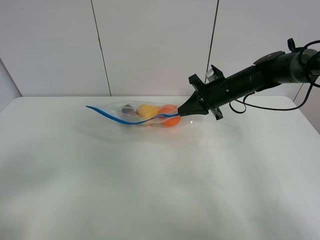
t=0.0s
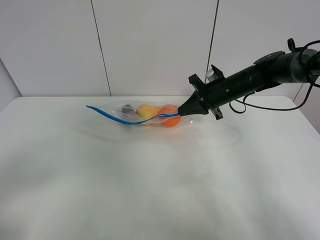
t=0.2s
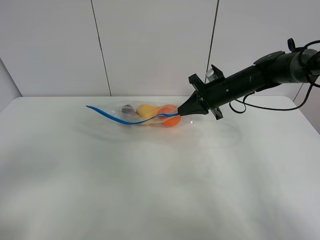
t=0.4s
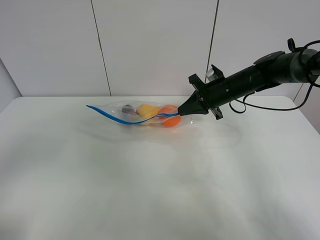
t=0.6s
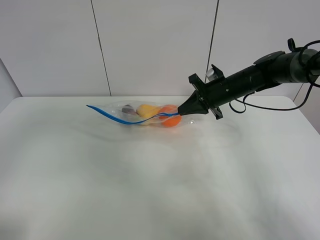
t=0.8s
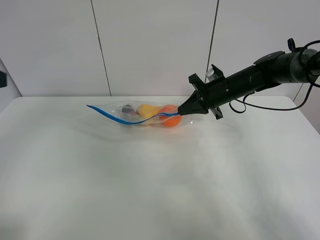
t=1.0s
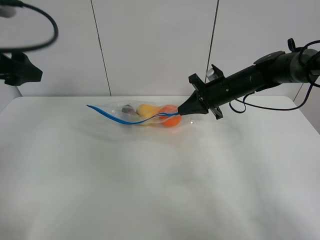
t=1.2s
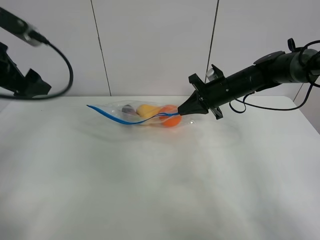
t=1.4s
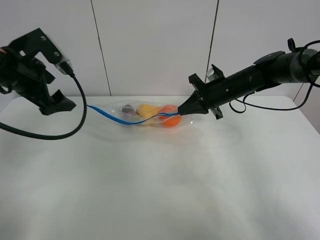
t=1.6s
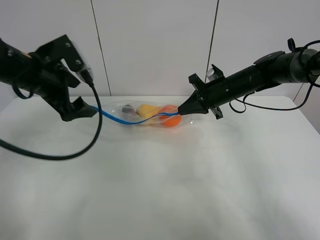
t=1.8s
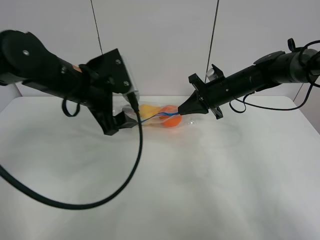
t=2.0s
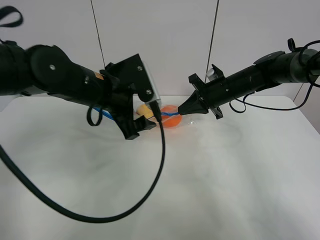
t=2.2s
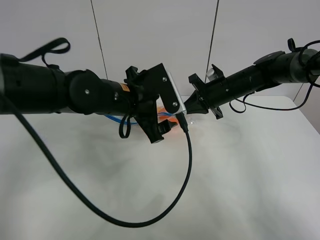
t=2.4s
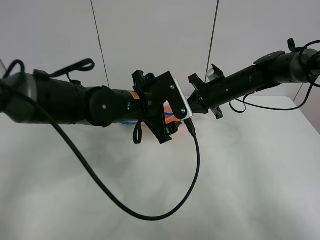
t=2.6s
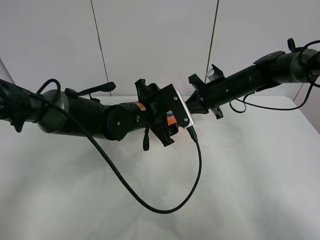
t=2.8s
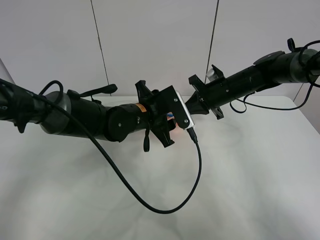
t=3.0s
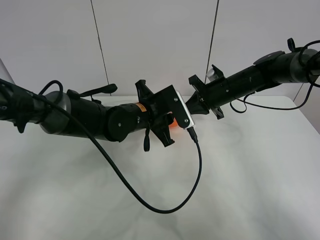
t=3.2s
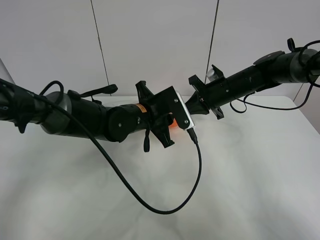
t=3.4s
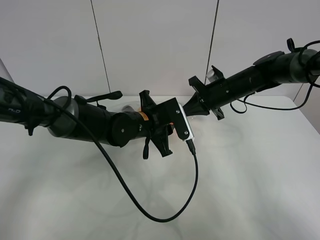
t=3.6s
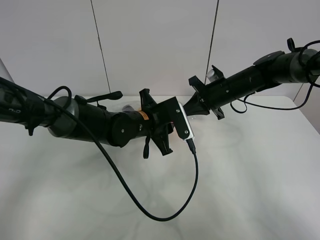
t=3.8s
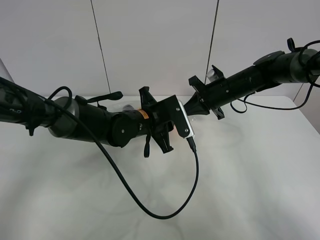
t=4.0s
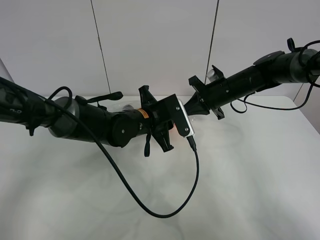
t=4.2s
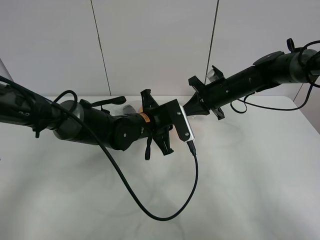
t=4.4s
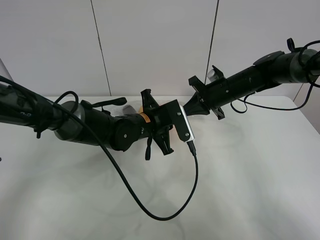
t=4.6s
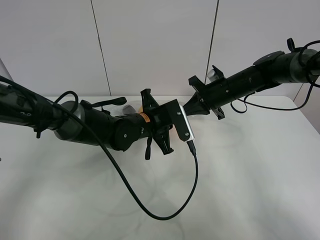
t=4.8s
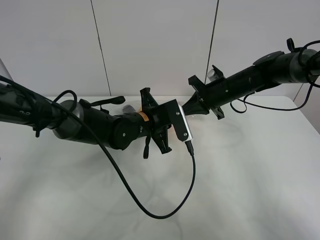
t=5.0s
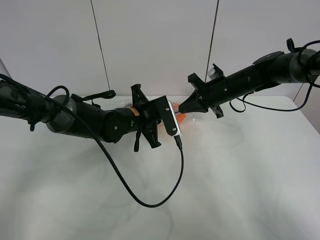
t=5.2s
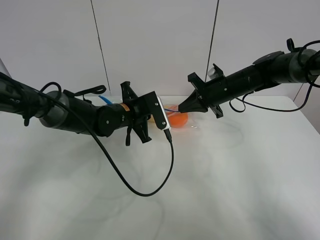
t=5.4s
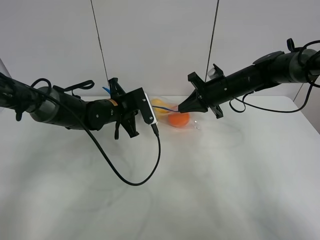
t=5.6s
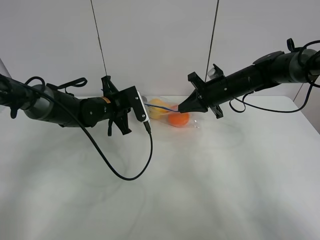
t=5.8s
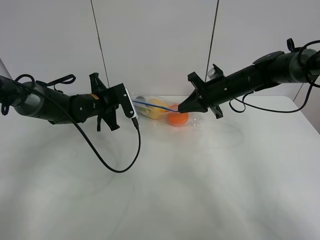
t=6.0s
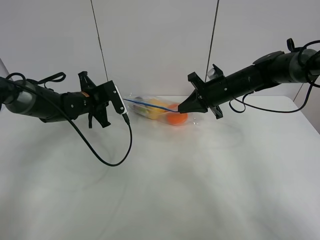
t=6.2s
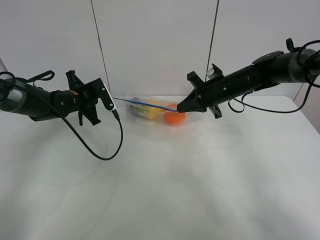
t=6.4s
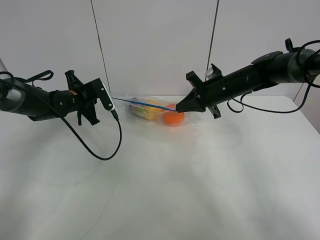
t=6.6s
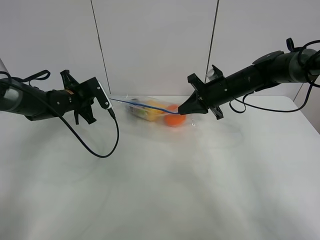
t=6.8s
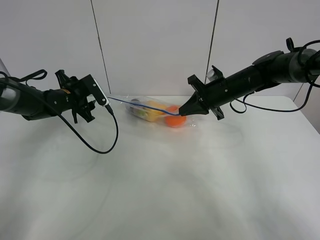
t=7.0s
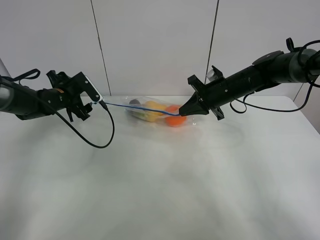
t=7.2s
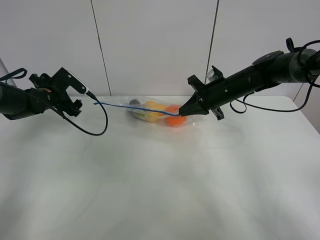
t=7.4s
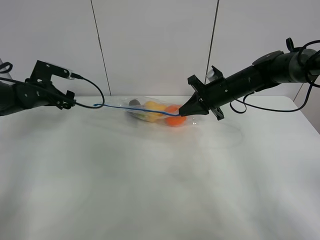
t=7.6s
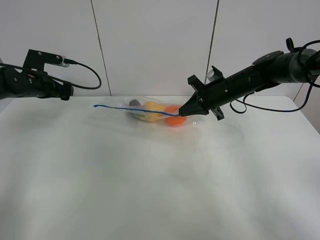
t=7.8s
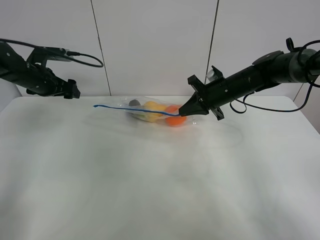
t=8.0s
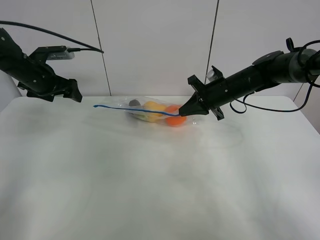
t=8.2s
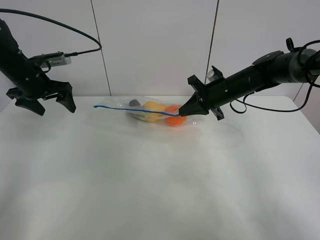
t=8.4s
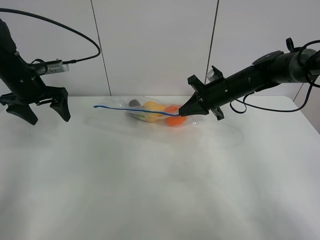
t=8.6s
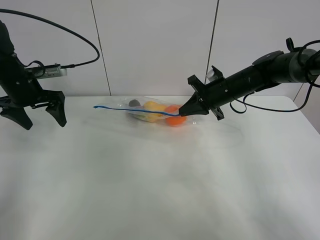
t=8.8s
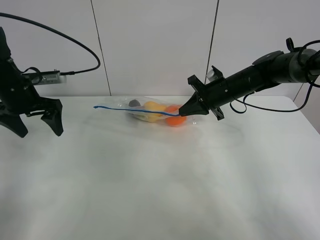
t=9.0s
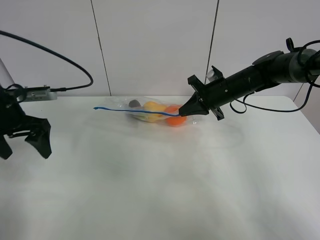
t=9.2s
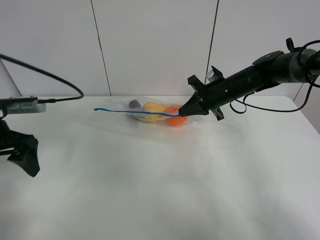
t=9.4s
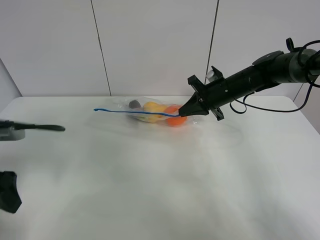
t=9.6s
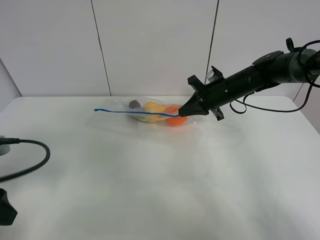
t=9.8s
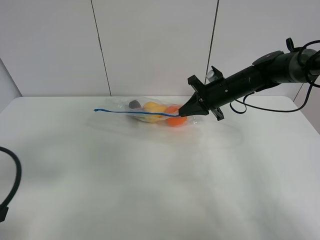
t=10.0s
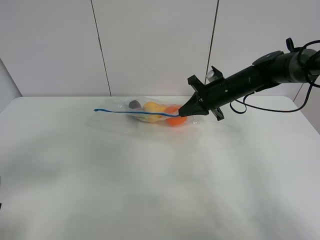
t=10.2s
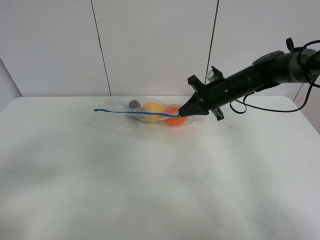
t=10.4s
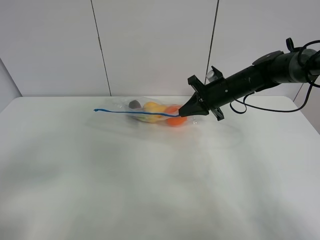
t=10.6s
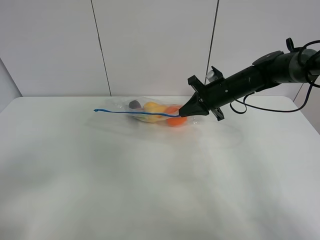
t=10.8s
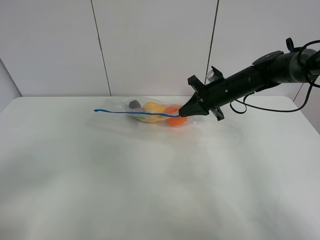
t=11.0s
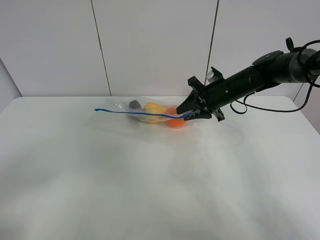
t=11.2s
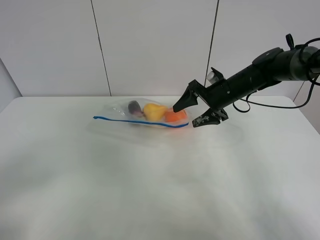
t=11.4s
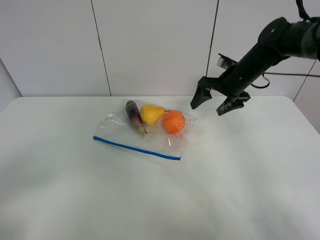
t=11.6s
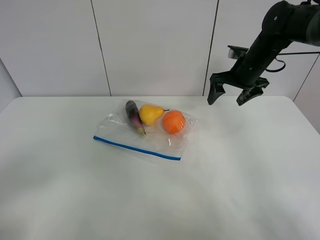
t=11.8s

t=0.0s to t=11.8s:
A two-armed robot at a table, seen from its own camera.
Step, t=0.2s to t=6.8s: Pull the fruit bag with left gripper.
t=0.0s to t=1.4s: The left gripper travels forward by roughly 30 cm.
t=1.4s to t=3.0s: The left gripper is displaced to the right and downward by roughly 30 cm, and closes up.
t=3.0s to t=4.4s: The left gripper closes.
t=4.4s to t=6.0s: The left gripper moves to the left and forward, roughly 15 cm.
t=6.0s to t=7.4s: The left gripper heads to the left, covering about 15 cm, and opens its fingers.
t=7.4s to t=8.8s: The left gripper goes about 10 cm upward and backward.
t=8.8s to t=10.4s: The left gripper goes roughly 30 cm backward.
t=10.4s to t=11.8s: The left gripper ends up roughly 5 cm from where it was. The right gripper shifts roughly 10 cm upward and to the right, and opens its fingers.

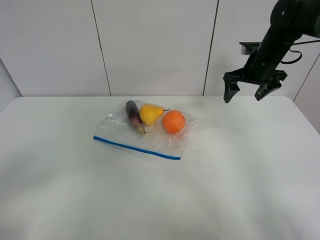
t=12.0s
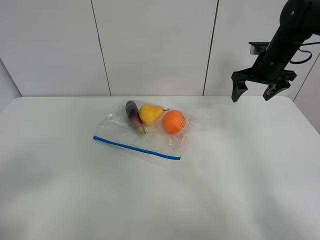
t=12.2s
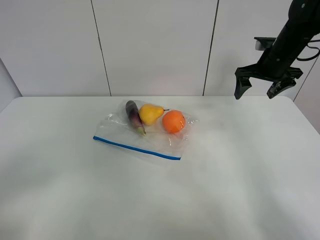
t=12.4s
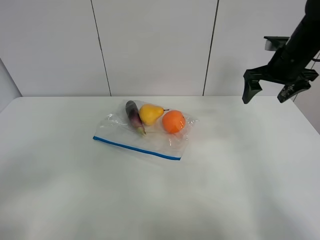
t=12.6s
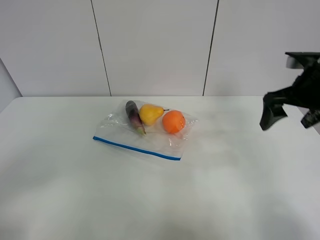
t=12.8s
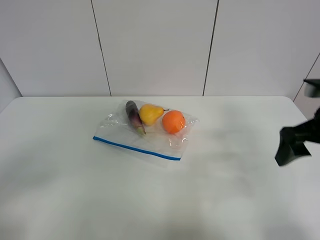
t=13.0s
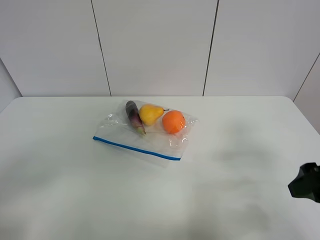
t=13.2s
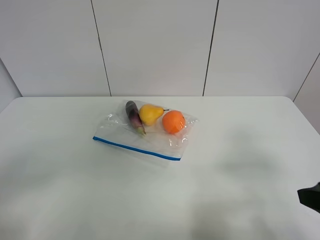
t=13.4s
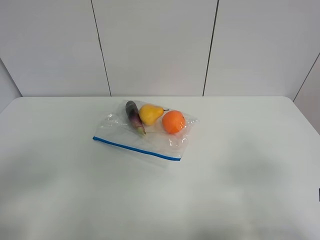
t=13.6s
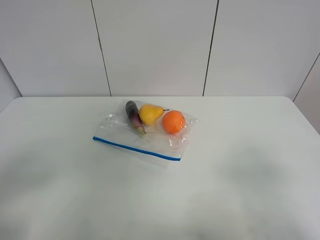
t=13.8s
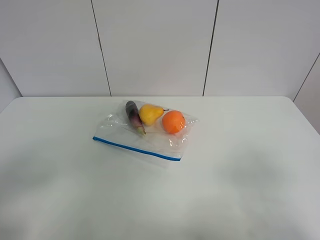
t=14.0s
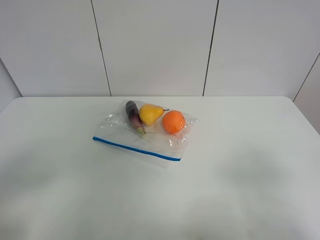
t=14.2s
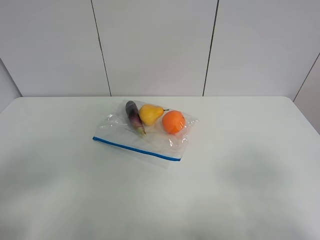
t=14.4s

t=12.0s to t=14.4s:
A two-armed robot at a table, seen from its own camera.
t=12.0s to t=13.2s: The right gripper shifts approximately 30 cm backward.
t=13.2s to t=14.4s: The right gripper goes some 10 cm backward.

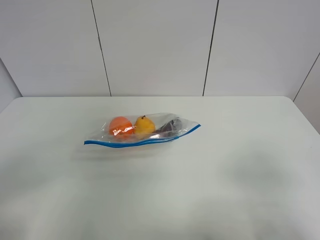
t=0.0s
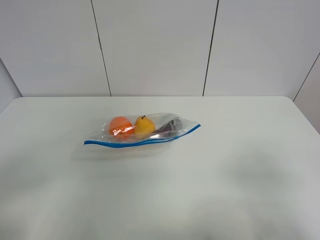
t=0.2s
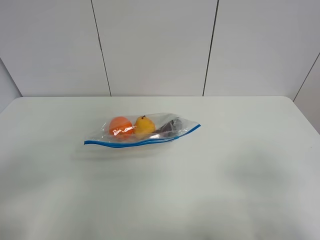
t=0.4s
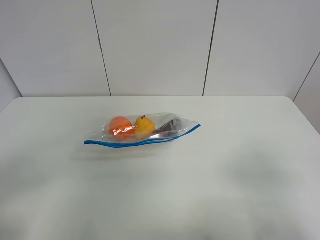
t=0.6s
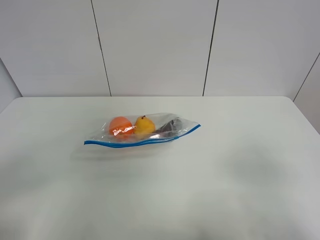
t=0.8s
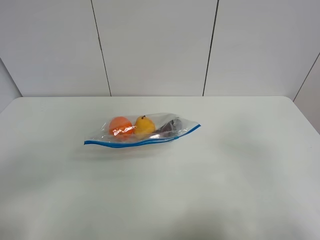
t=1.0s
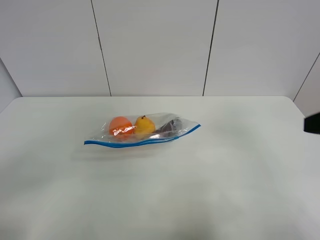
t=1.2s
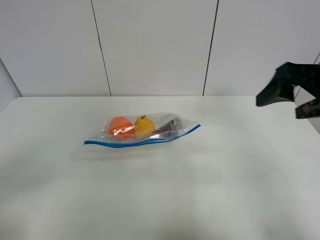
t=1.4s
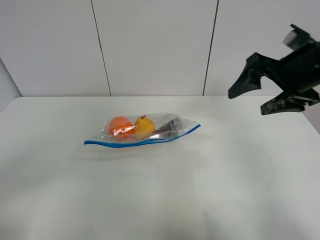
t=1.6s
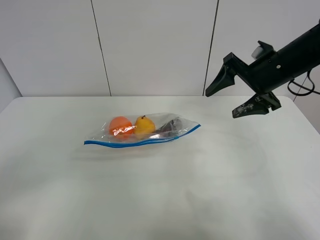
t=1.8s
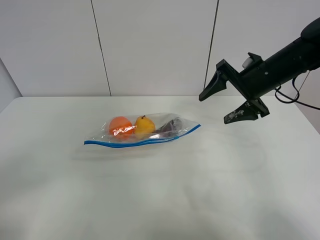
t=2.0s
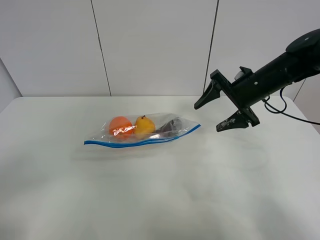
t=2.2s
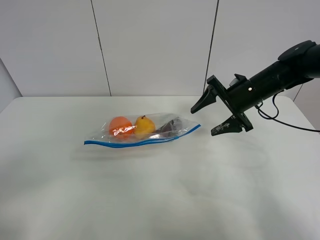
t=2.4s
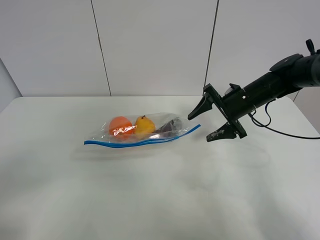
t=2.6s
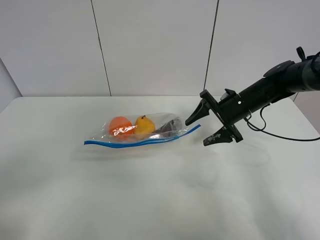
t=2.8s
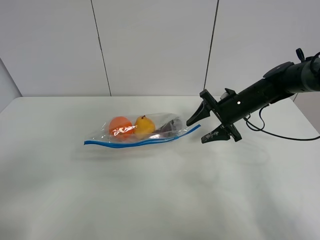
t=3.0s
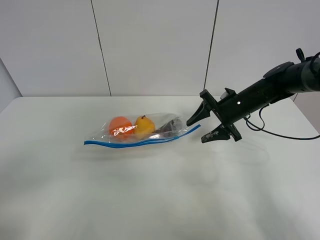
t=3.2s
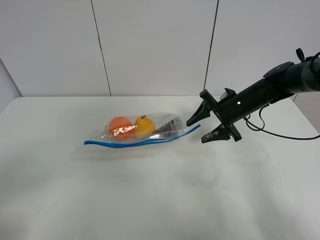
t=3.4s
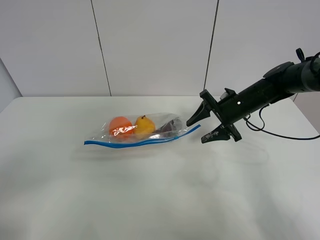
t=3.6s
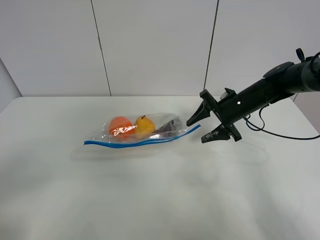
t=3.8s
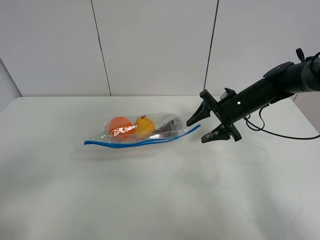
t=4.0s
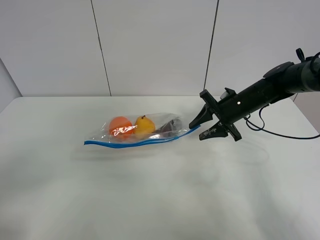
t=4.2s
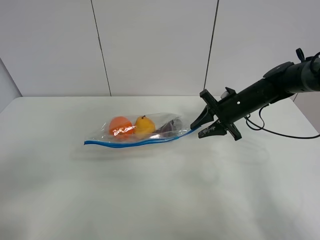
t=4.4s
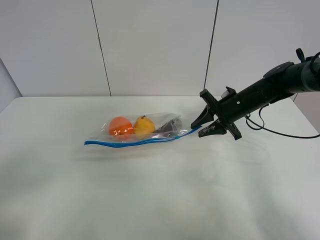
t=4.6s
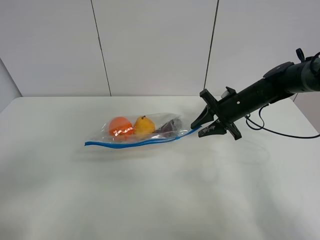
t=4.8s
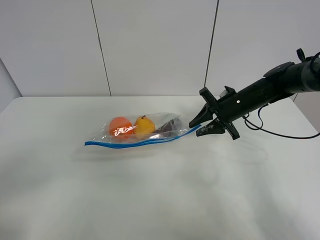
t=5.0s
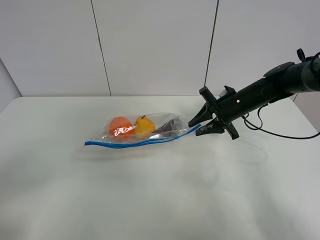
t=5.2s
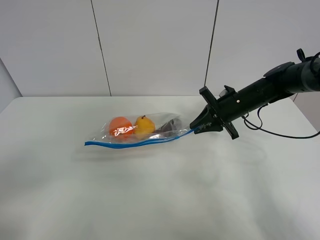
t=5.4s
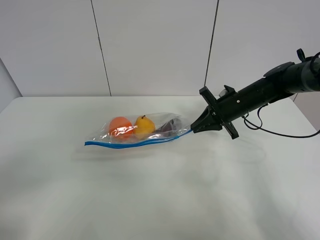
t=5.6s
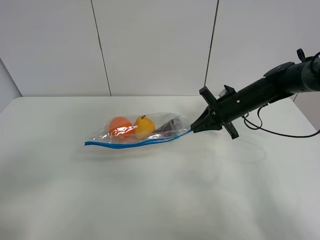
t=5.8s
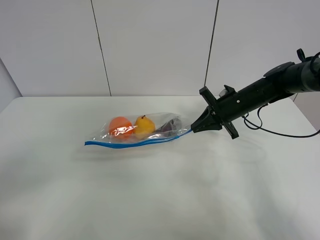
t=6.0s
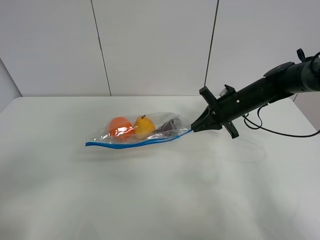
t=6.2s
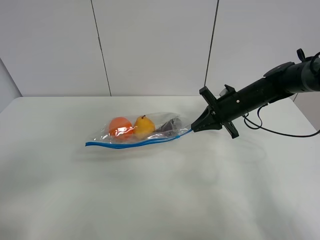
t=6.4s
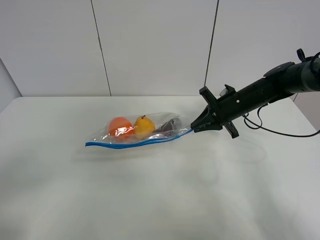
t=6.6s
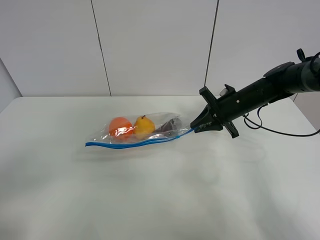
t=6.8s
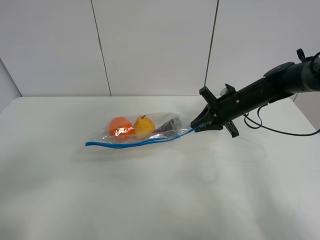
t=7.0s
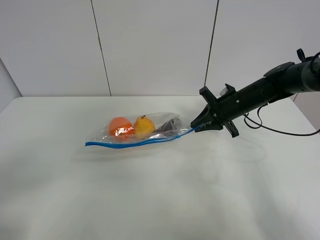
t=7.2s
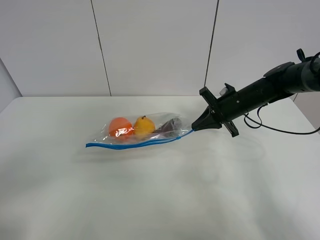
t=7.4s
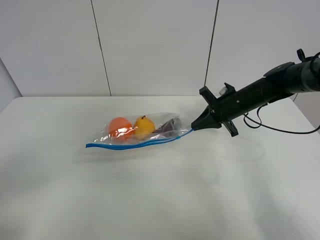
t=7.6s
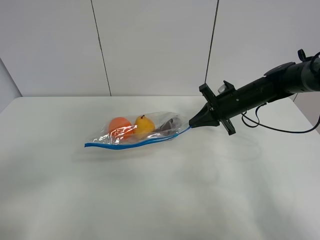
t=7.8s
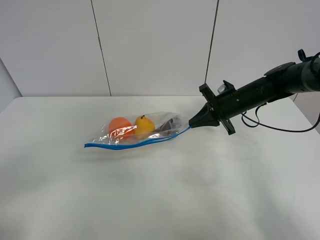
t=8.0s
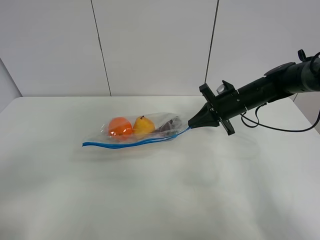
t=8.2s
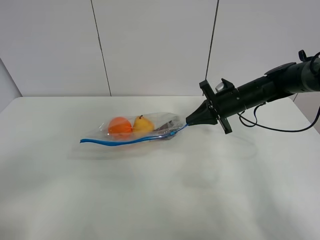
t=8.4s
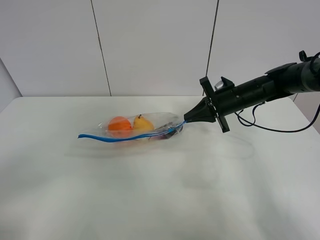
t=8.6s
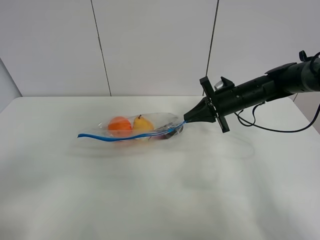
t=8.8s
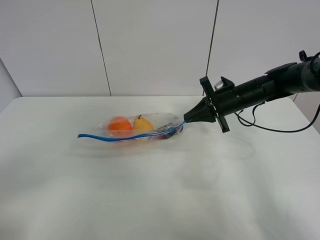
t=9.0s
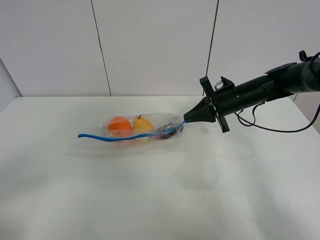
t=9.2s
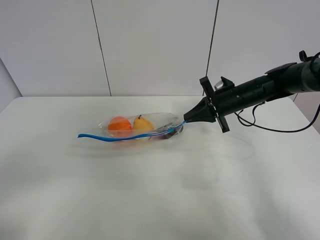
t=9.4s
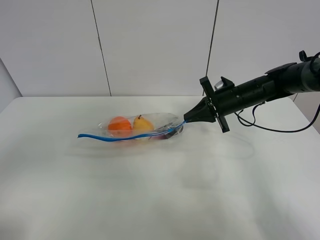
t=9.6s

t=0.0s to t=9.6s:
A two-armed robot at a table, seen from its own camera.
Step, t=0.0s to t=7.4s: Grasp the fruit bag with right gripper.
Step, t=7.6s to t=8.8s: Lift the fruit bag with your right gripper.
t=0.0s to t=1.6s: The right gripper is displaced forward by roughly 30 cm.
t=1.6s to t=3.2s: The right gripper travels downward and forward by roughly 20 cm.
t=3.2s to t=6.4s: Neither gripper changes place.
t=6.4s to t=8.0s: The grippers make only small movements.
t=8.0s to t=9.6s: The left gripper heads upward, covering some 5 cm.
